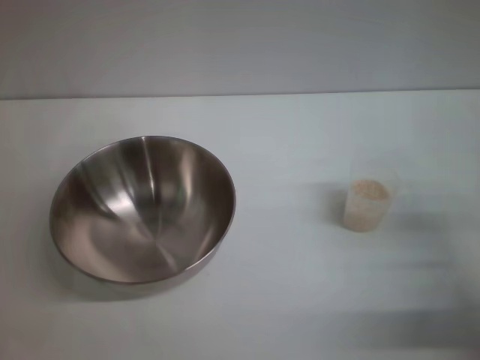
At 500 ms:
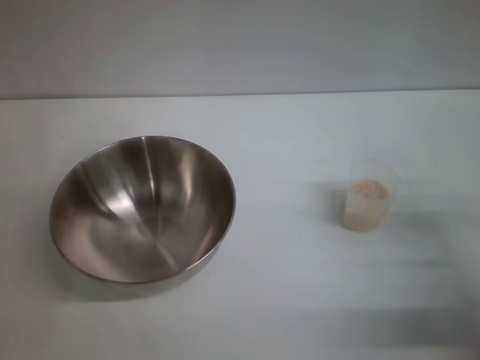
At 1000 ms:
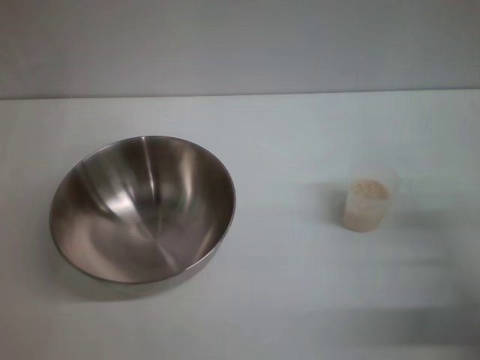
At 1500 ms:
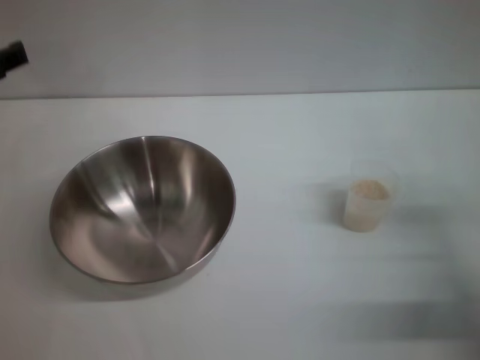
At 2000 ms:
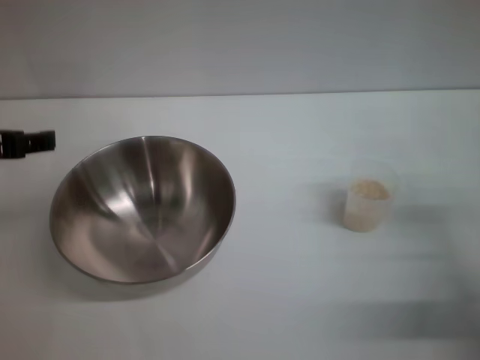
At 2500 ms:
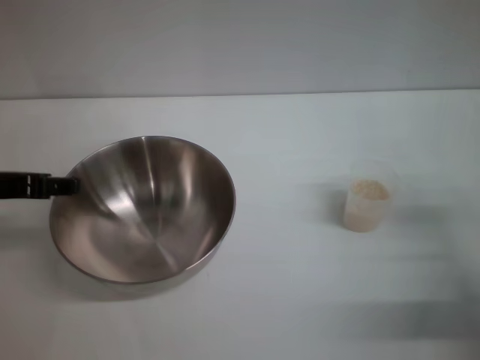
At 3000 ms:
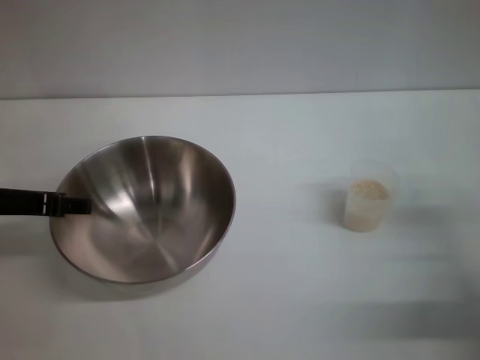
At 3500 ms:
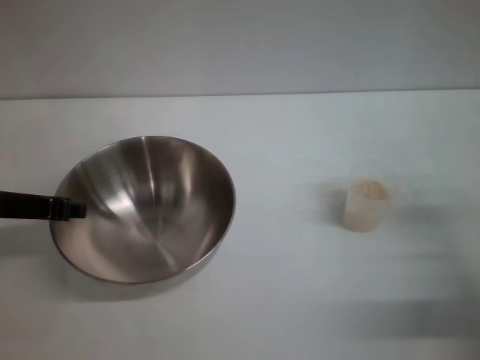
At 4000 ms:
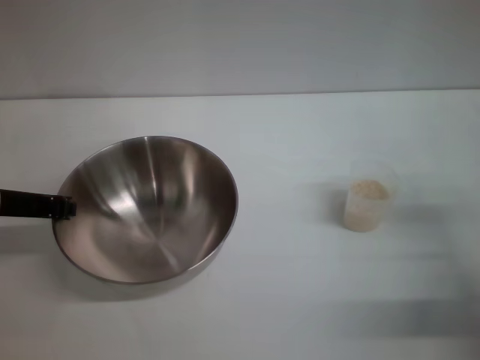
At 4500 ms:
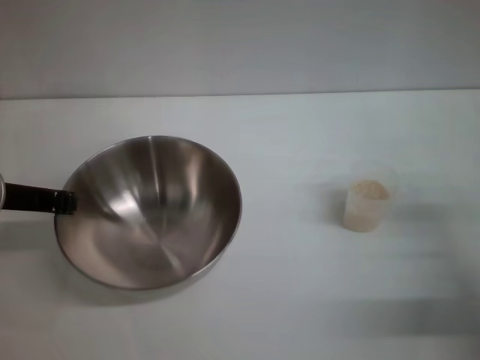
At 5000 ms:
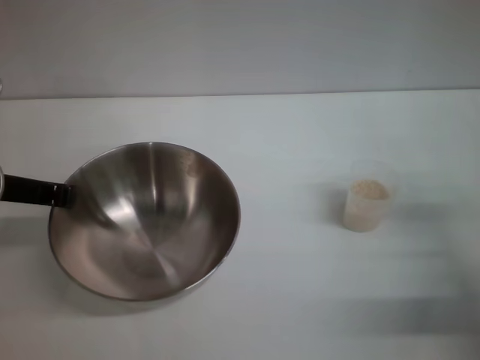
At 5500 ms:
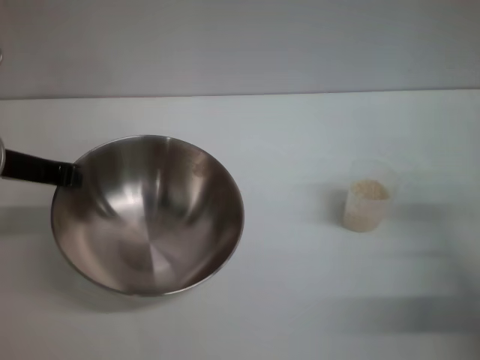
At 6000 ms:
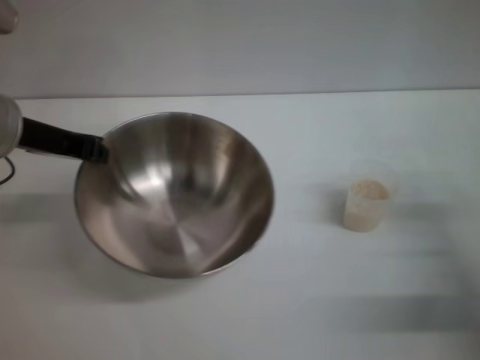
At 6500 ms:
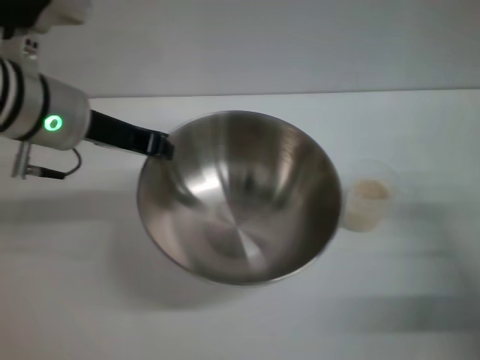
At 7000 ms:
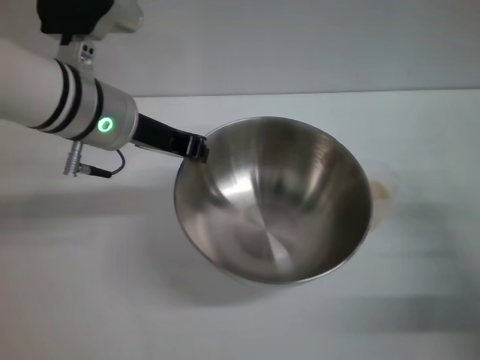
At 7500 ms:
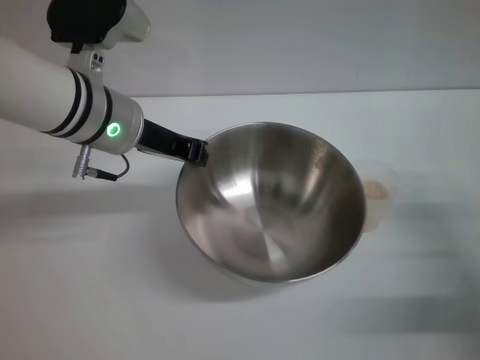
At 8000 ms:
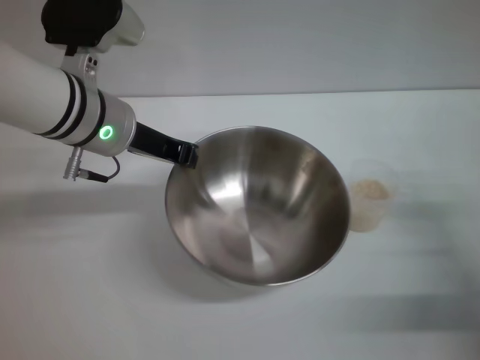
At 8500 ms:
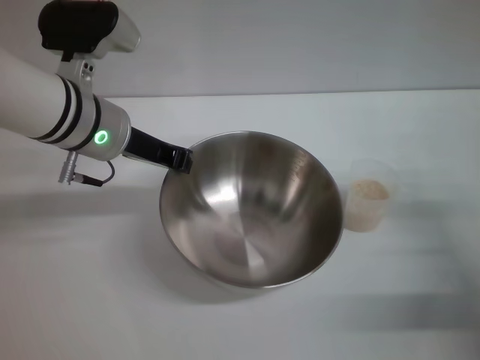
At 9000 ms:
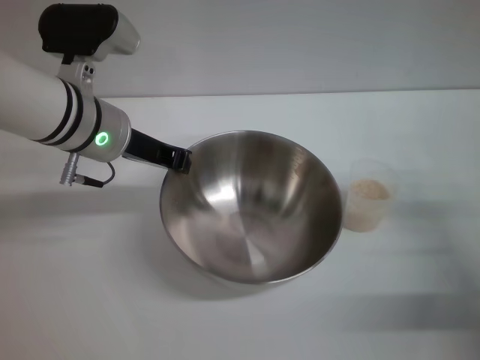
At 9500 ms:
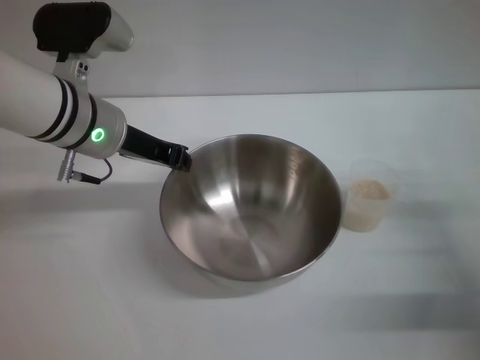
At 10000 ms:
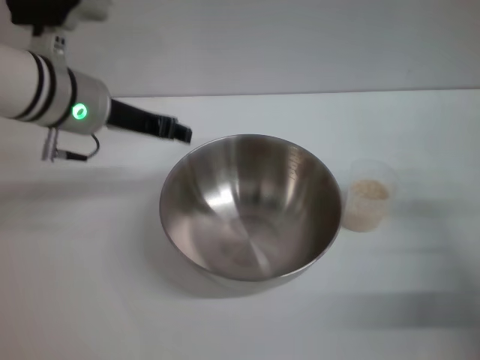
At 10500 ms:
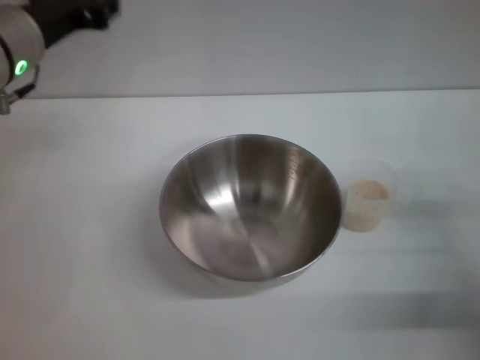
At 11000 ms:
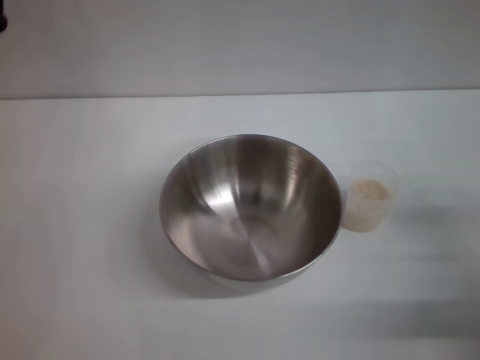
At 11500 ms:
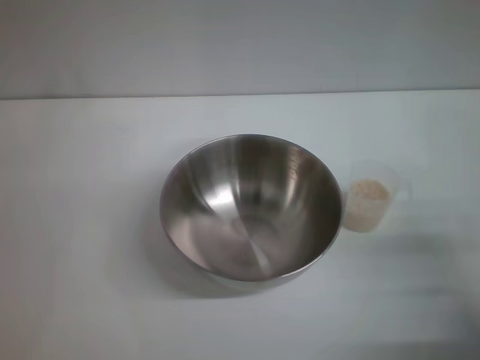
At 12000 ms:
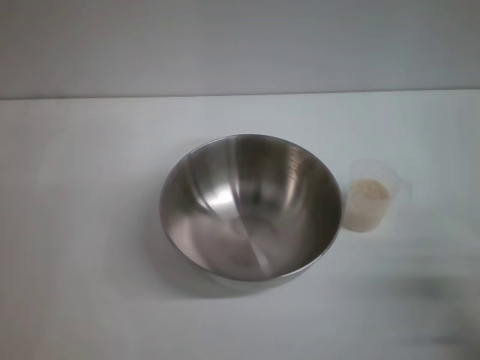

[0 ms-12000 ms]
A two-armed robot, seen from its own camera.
Task of the whole recording: Place the bowl in the middle of the table with one hand and pour the rice from the grain cup into it with the other hand.
Step, 0 ms to 6000 ms: Pick up the bowl with the left gripper.
Step, 6500 ms to 11000 ms: Place the bowl in the center of view with the left gripper.
0 ms to 2000 ms: The left gripper shifts about 15 cm upward.
2000 ms to 4000 ms: The left gripper travels downward by roughly 5 cm, and closes up.
4000 ms to 6000 ms: The left gripper shifts roughly 5 cm upward.
6000 ms to 8000 ms: The left gripper is displaced to the right by roughly 10 cm.
8000 ms to 10000 ms: There are only small adjustments of the grippers.
10000 ms to 12000 ms: The right gripper moves backward, some 10 cm. The left gripper moves to the left, backward and downward, approximately 25 cm.

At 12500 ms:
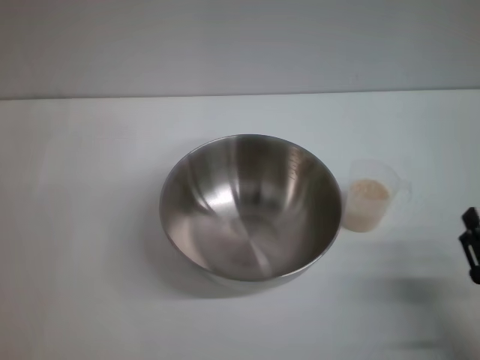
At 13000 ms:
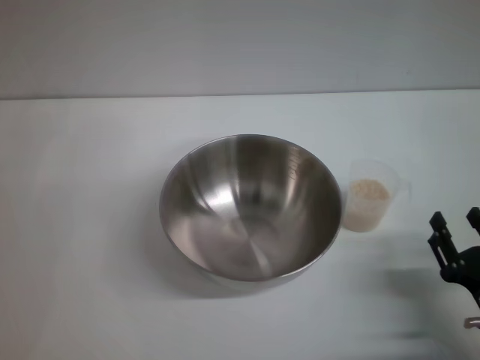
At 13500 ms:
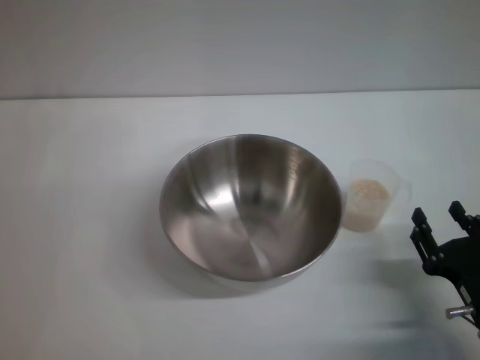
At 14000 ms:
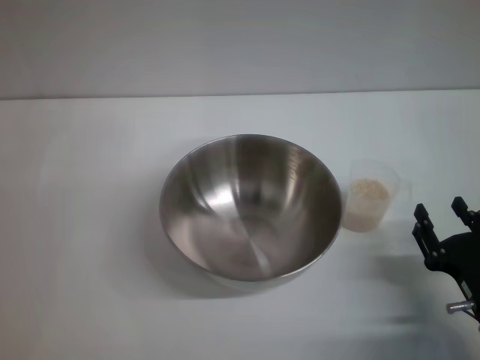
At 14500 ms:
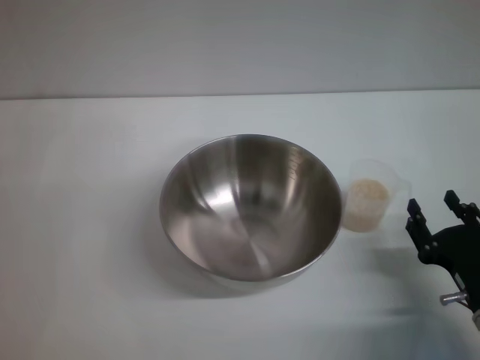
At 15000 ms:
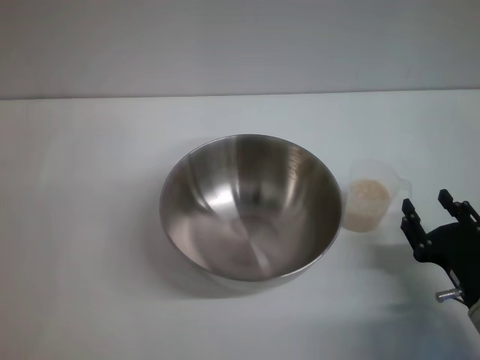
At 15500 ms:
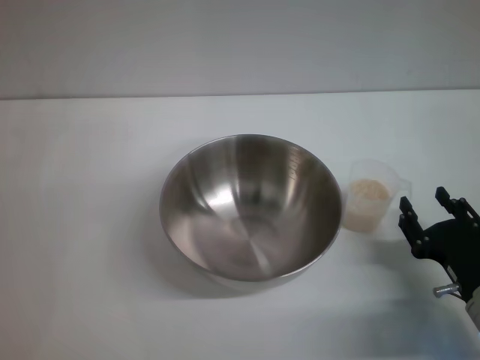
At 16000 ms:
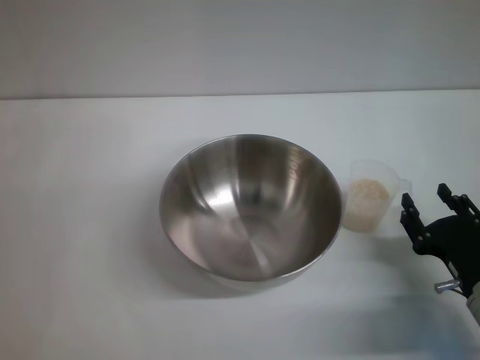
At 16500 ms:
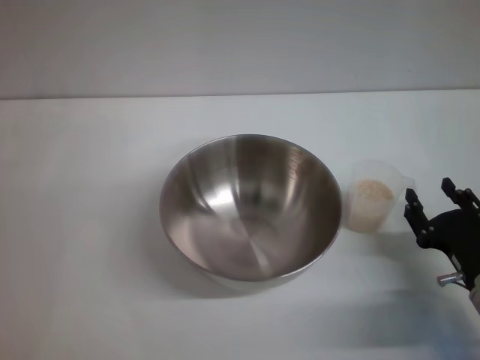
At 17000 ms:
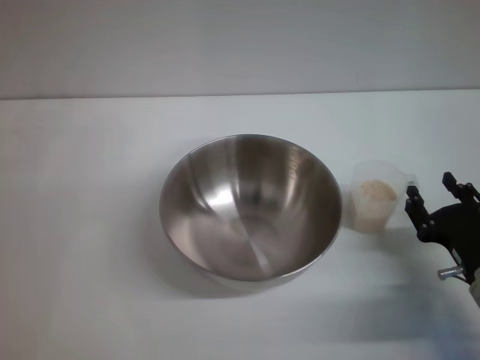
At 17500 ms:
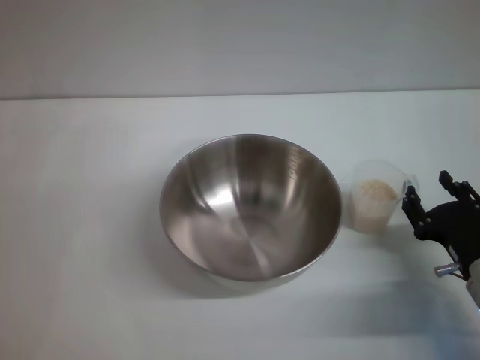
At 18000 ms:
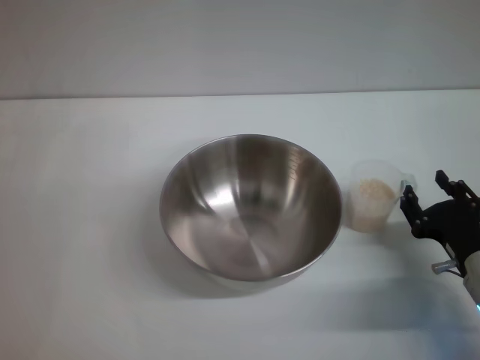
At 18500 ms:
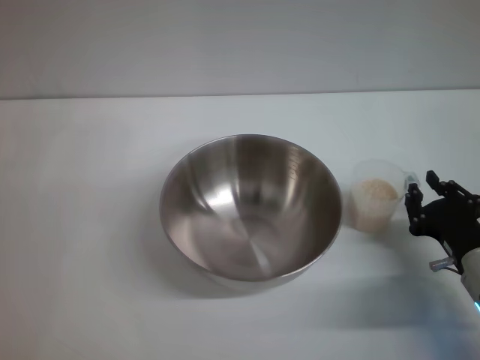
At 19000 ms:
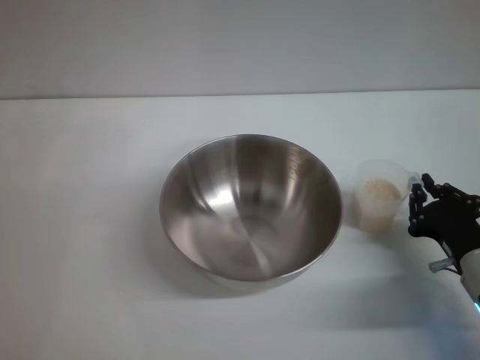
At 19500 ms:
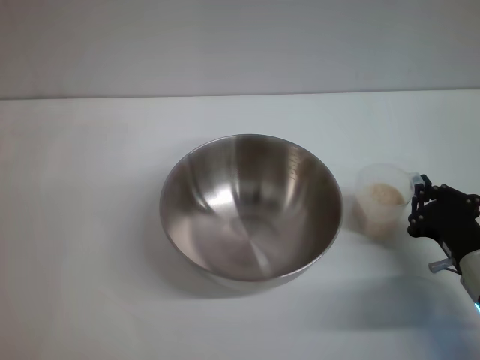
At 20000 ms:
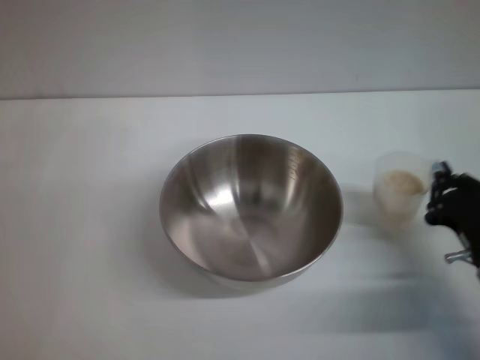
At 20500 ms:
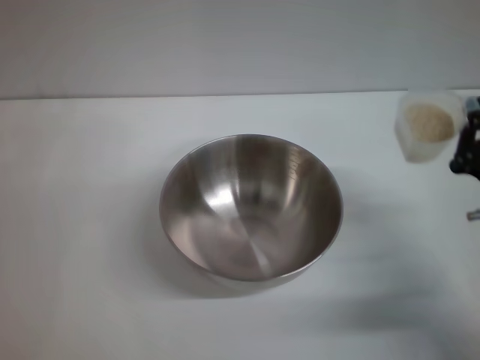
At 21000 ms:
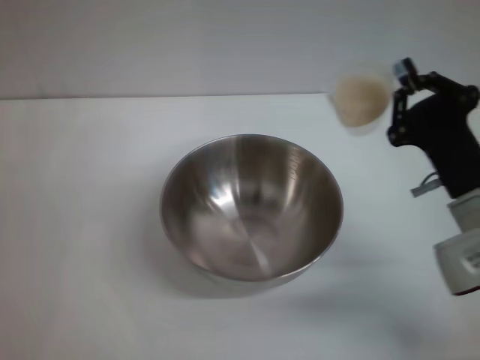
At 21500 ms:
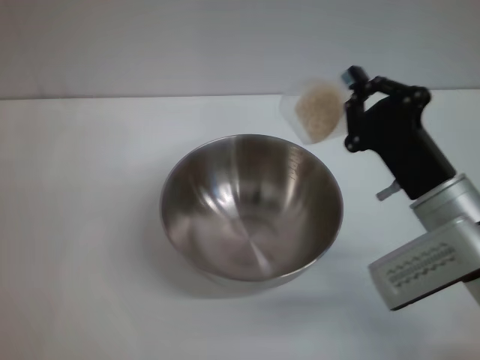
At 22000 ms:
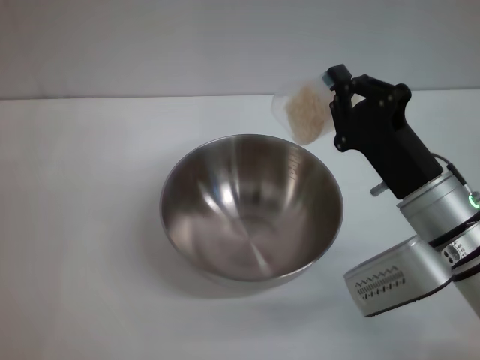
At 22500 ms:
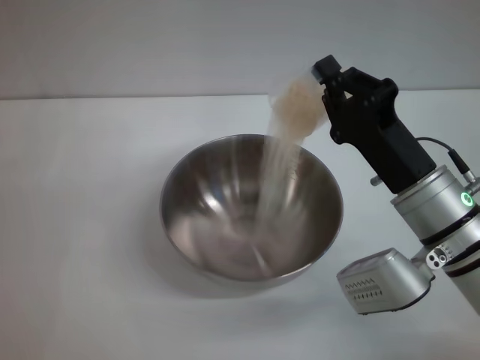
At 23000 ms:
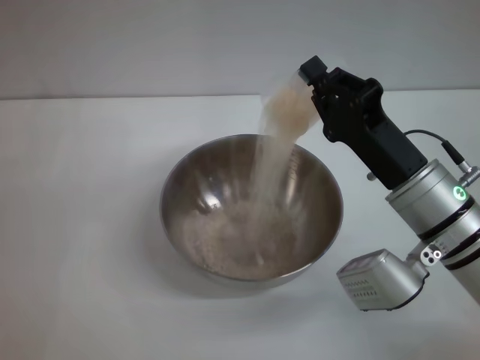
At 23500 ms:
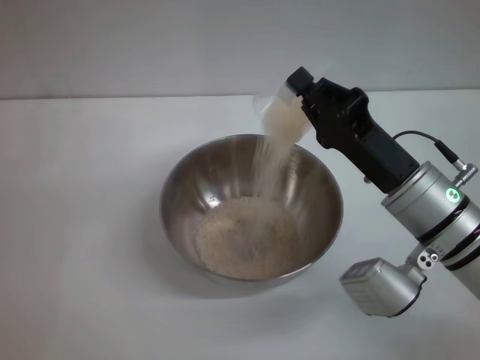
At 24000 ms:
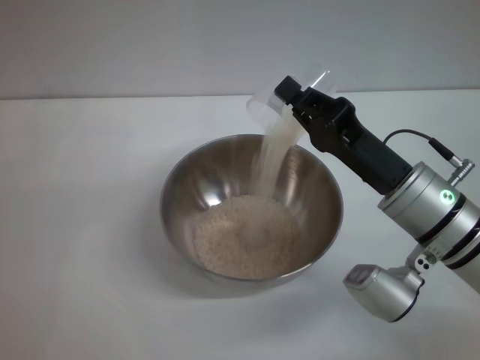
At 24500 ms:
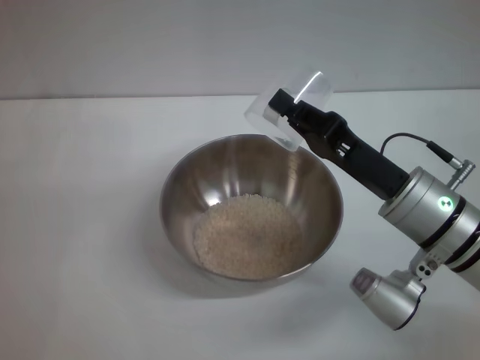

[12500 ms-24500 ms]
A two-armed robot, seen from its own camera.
Task of the whole recording: Place the bowl in the middle of the table with one hand and pour the rice from the grain cup into it with the other hand.
Step, 12500 ms to 20500 ms: Pick up the cup with rice in it with the right gripper.
Step, 21000 ms to 24000 ms: Pour the rice from the cup into the bowl with the right gripper.
12500 ms to 14500 ms: The right gripper is displaced forward by approximately 5 cm.
14500 ms to 16500 ms: There are only small adjustments of the grippers.
16500 ms to 18500 ms: The right gripper closes up.
18500 ms to 20500 ms: The right gripper moves upward, some 5 cm, and closes up.
20500 ms to 22500 ms: The right gripper goes approximately 10 cm to the left.

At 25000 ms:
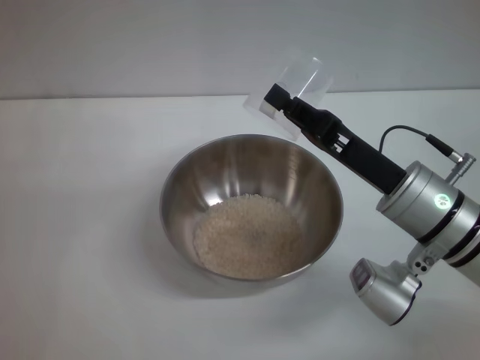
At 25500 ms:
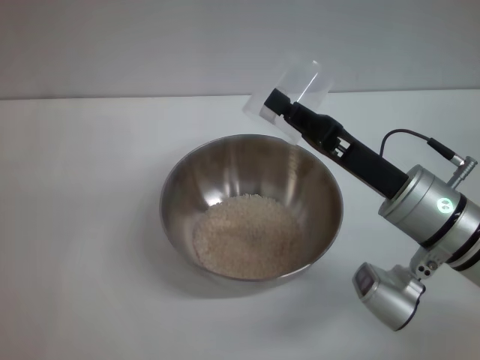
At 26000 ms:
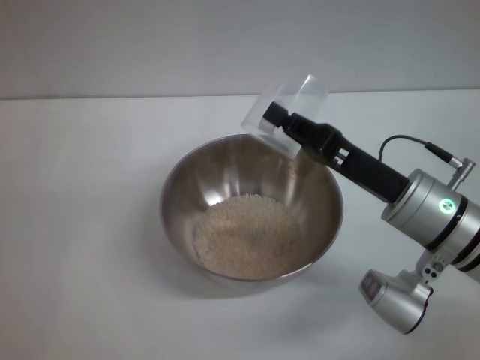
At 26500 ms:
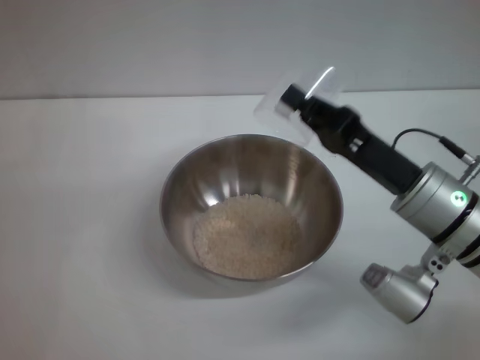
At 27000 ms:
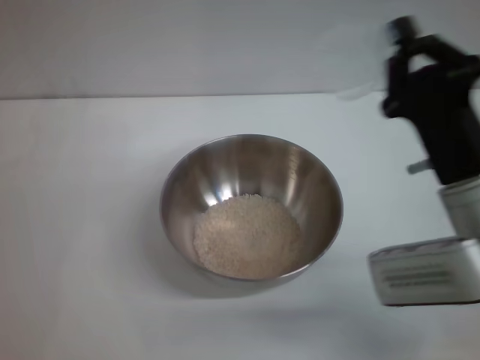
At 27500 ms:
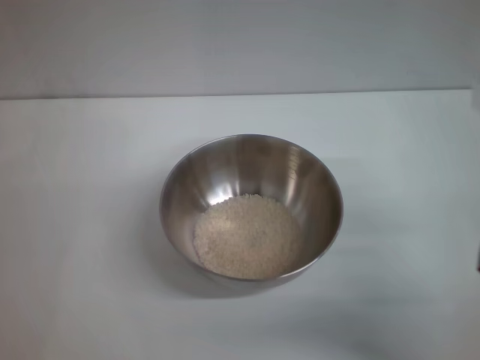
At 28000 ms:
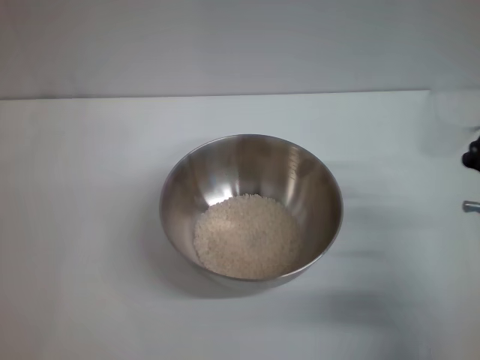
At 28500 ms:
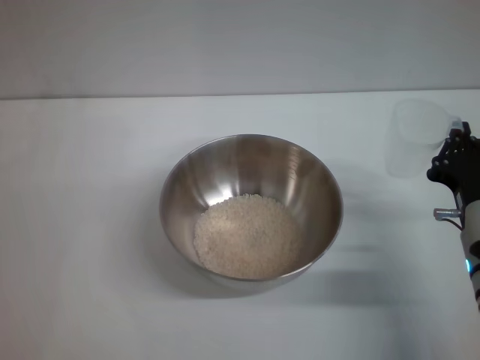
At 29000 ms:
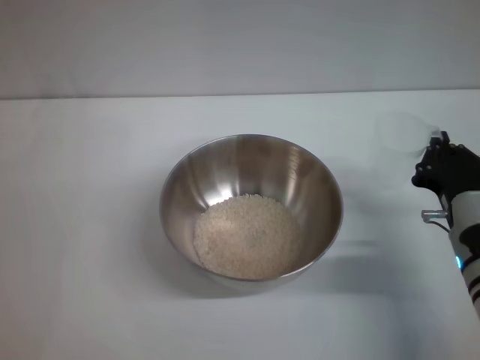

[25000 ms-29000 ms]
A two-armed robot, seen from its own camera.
Task of the whole recording: Place the bowl in the middle of the table with one hand and pour the rice from the grain cup into it with the other hand.
27000 ms to 29000 ms: The right gripper shifts some 10 cm downward.
